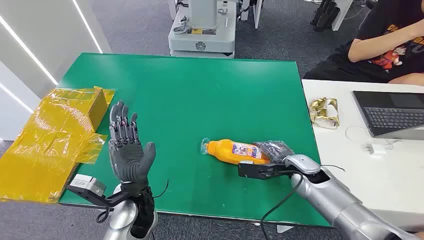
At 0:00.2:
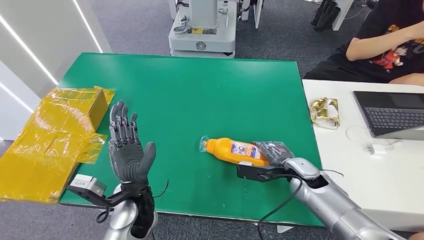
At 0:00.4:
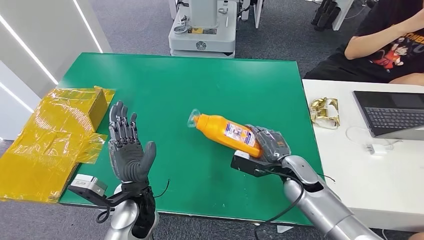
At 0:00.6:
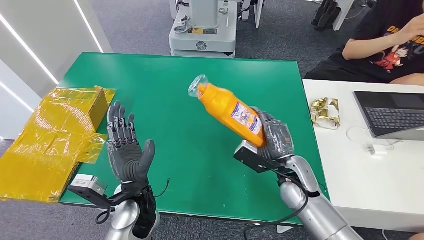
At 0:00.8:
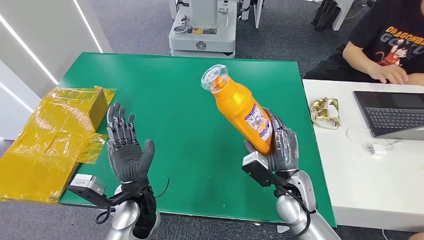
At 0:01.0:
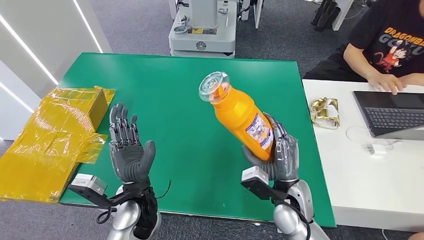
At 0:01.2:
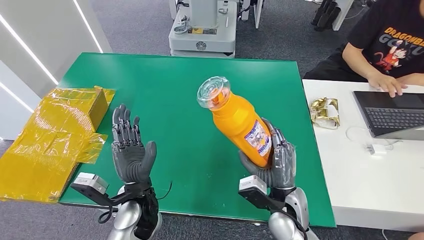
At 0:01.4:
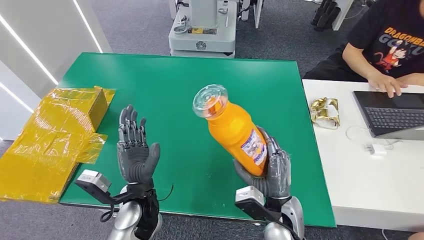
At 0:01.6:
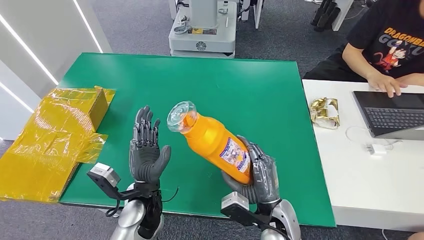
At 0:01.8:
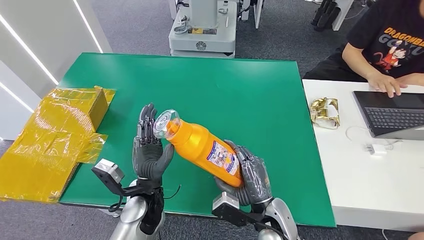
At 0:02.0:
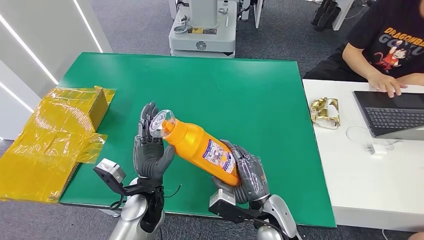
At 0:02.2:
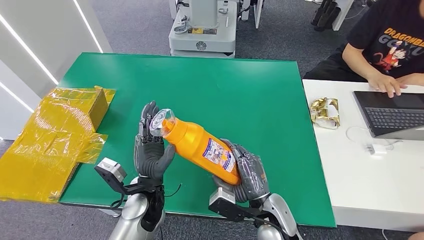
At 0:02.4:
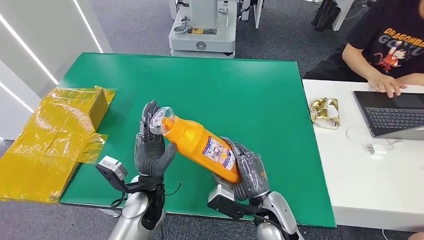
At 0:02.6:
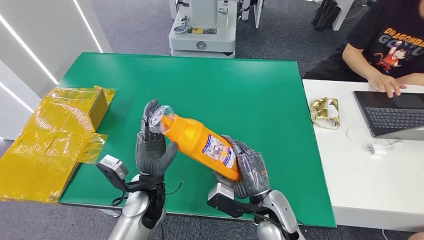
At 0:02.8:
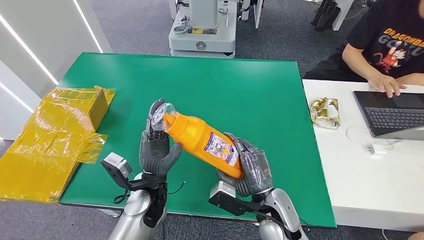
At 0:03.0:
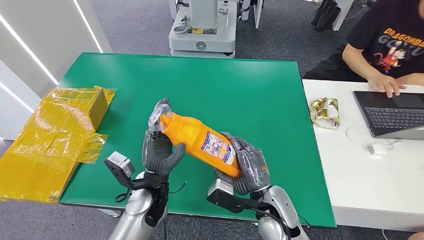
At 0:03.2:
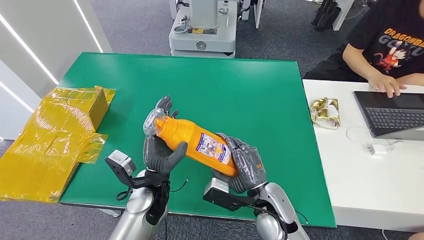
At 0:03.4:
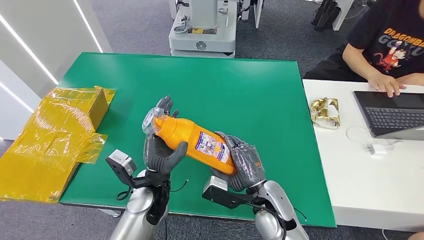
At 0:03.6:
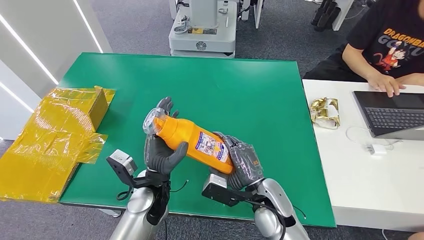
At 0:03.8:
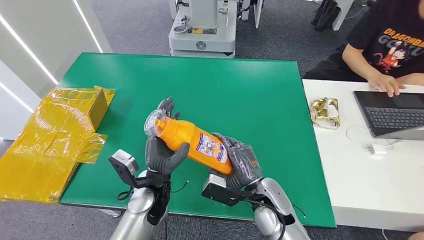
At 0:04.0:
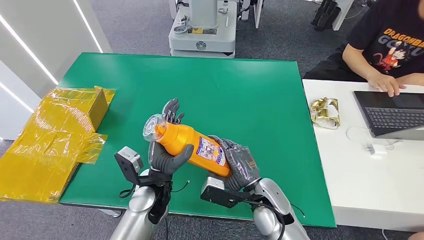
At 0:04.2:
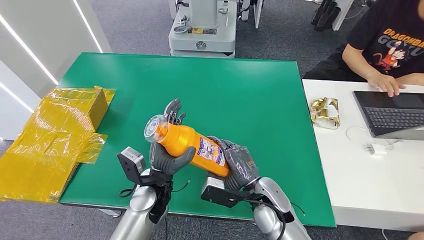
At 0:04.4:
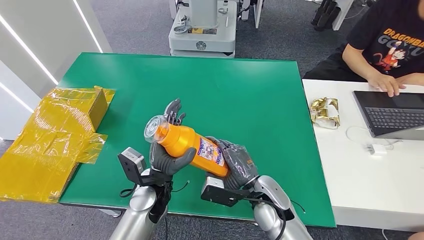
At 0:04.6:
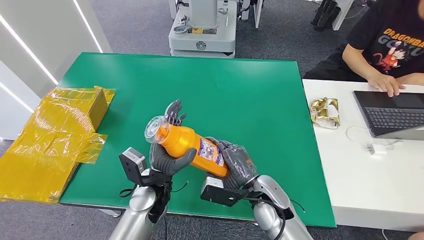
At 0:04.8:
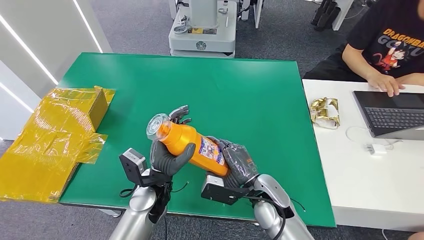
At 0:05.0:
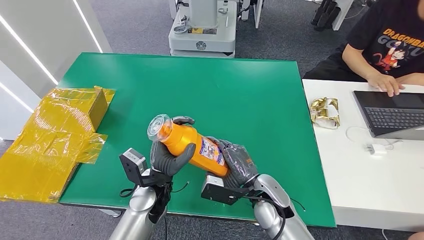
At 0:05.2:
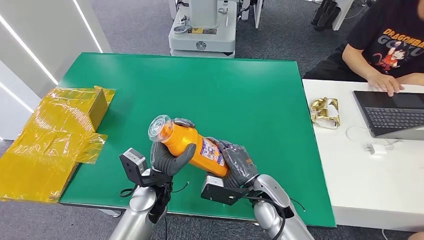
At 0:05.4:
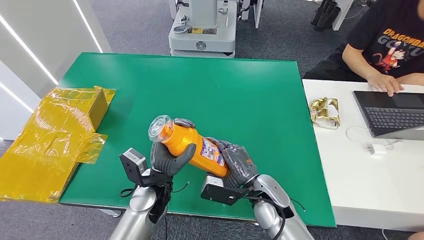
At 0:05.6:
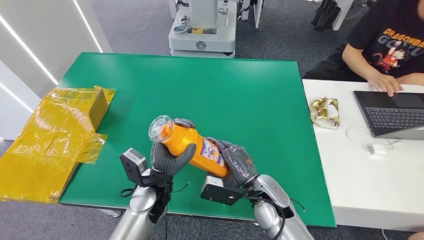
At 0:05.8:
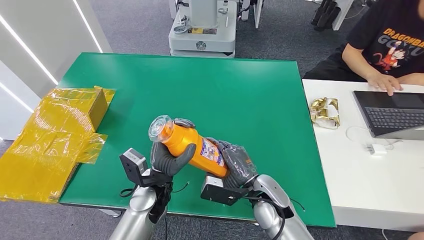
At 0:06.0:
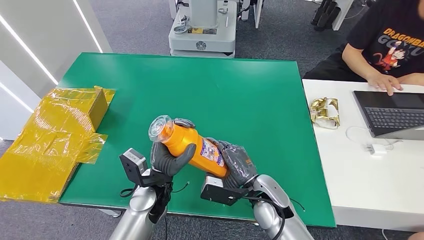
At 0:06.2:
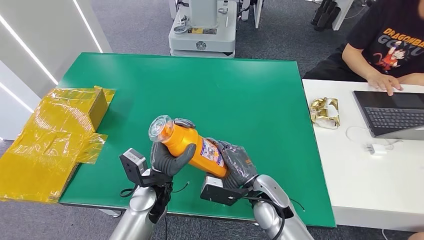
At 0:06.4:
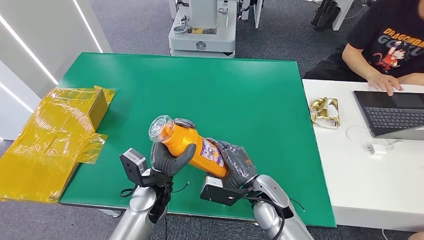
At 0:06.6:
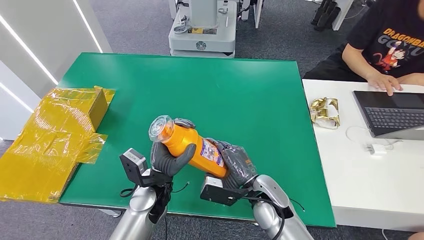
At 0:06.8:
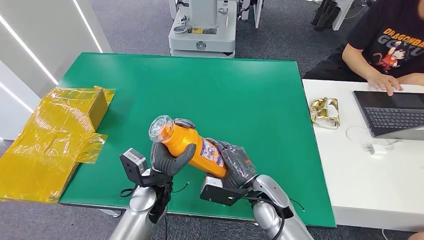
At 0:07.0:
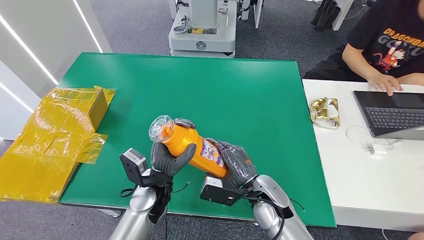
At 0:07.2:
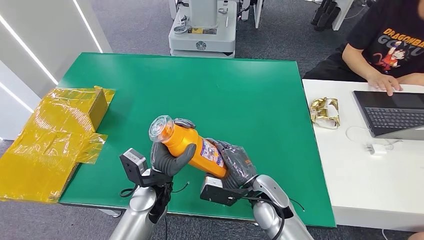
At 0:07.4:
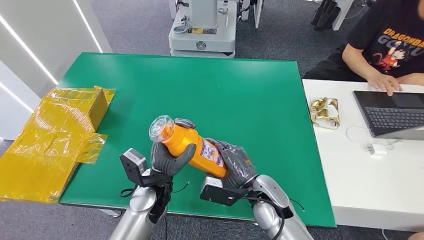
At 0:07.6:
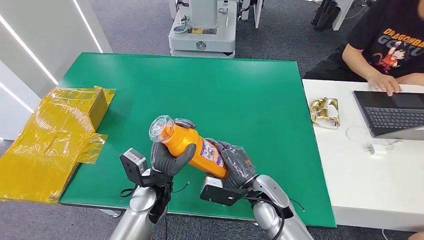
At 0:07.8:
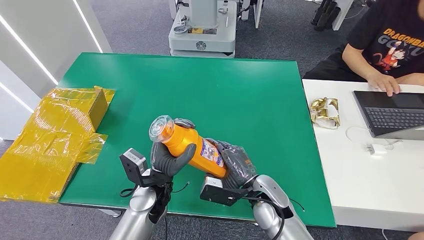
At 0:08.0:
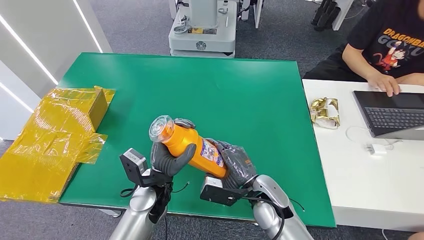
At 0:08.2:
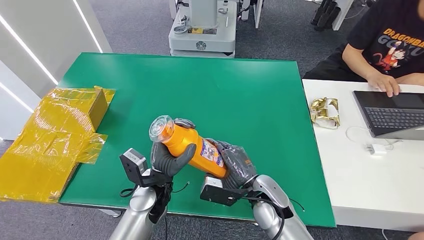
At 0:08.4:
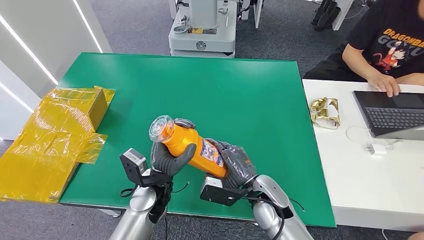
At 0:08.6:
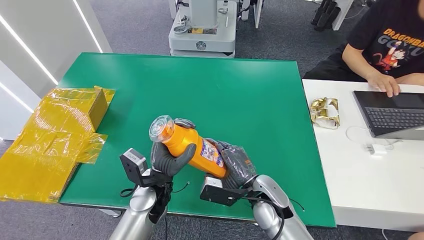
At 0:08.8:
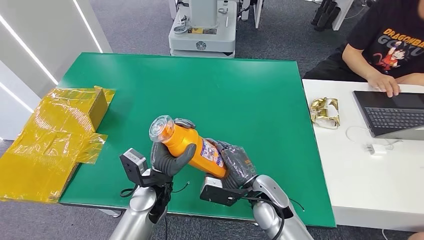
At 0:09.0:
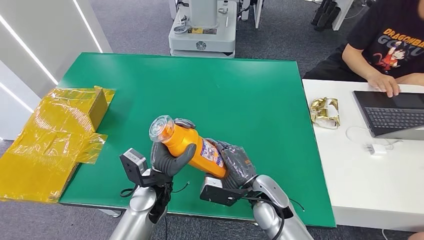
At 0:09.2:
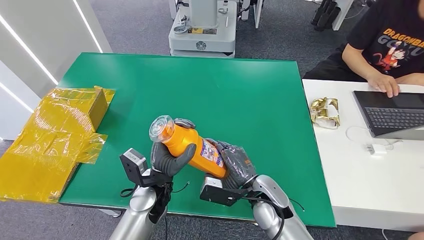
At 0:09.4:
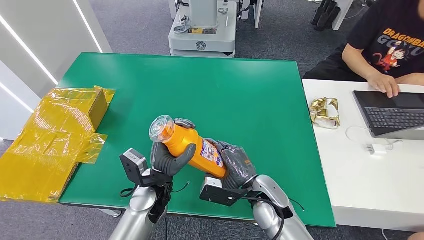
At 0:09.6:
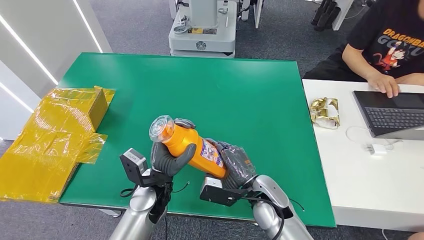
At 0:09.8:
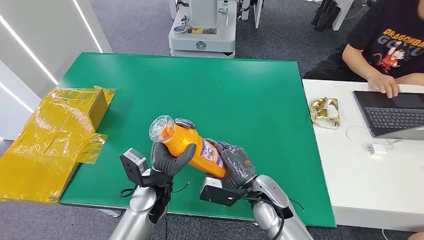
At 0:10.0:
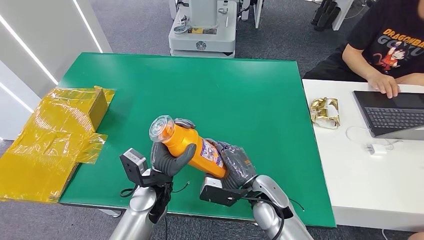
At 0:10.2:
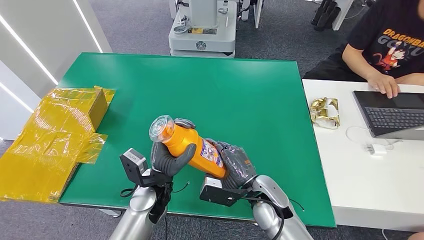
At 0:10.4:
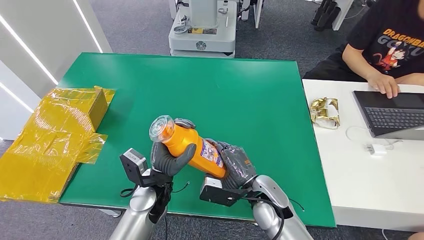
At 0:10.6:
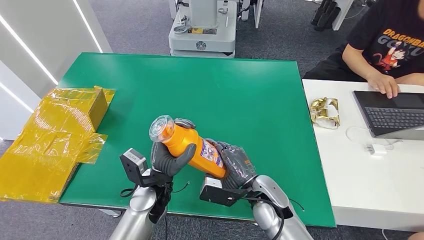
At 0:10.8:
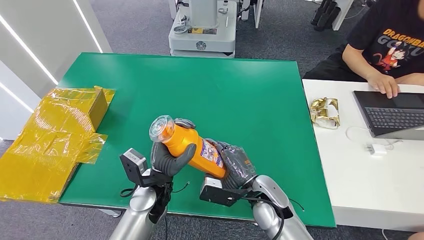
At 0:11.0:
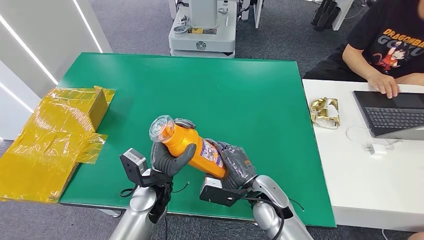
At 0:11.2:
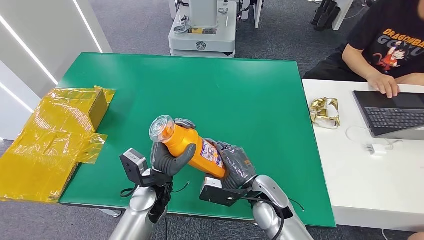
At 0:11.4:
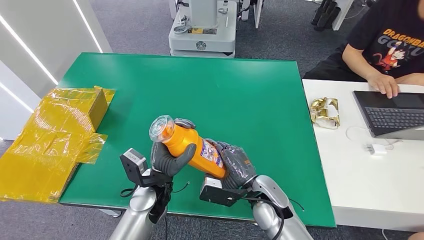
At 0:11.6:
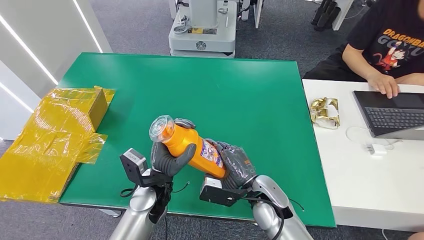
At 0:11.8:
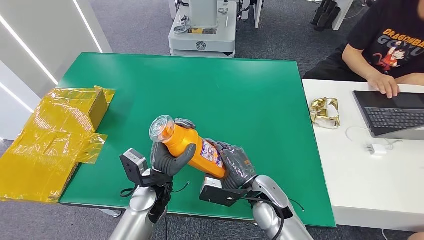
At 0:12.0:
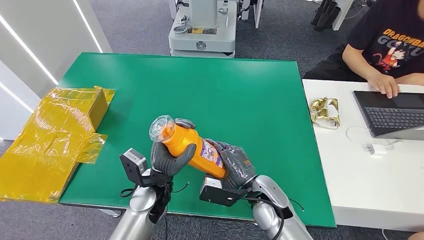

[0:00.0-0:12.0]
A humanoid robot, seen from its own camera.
Step, 0:00.0 to 0:02.8: Pick up the bottle from the table.
0:01.6 to 0:03.0: The hands move only a little.
0:03.0 to 0:04.4: The hands move only a little.
0:04.4 to 0:12.0: Neither hand changes place.

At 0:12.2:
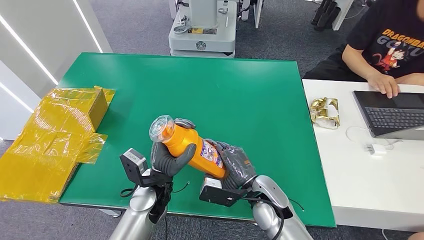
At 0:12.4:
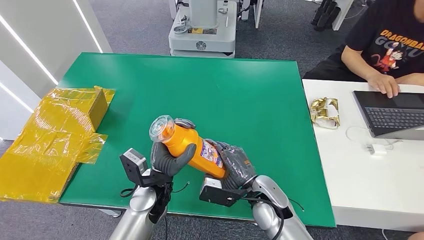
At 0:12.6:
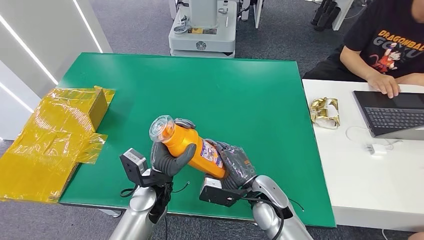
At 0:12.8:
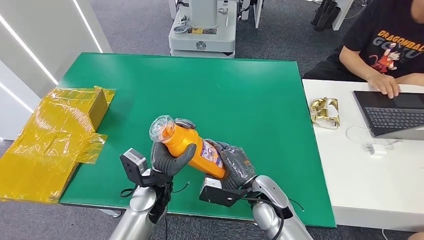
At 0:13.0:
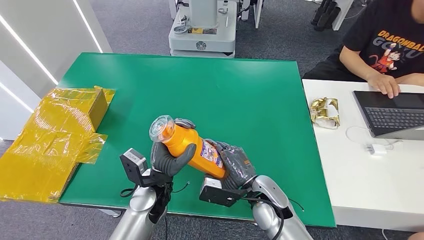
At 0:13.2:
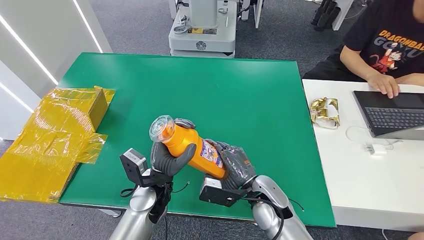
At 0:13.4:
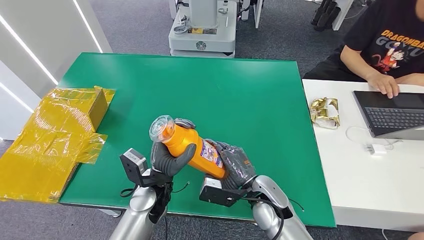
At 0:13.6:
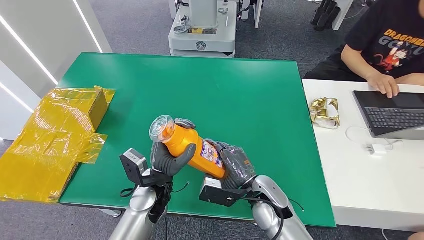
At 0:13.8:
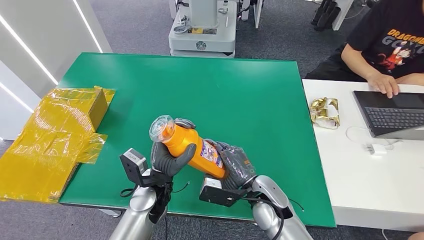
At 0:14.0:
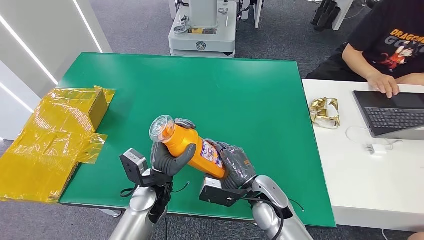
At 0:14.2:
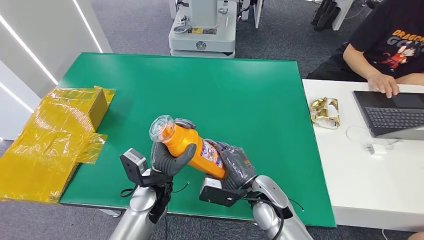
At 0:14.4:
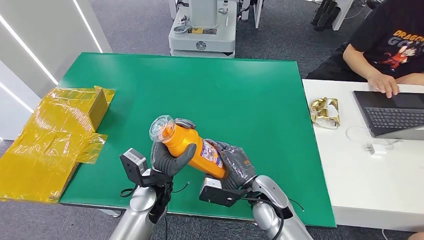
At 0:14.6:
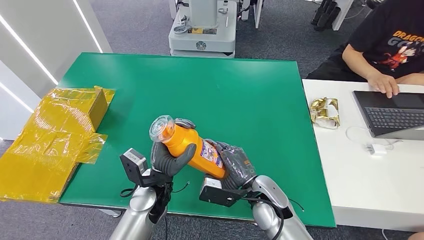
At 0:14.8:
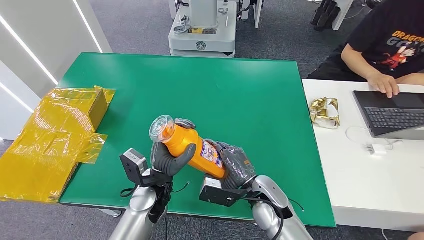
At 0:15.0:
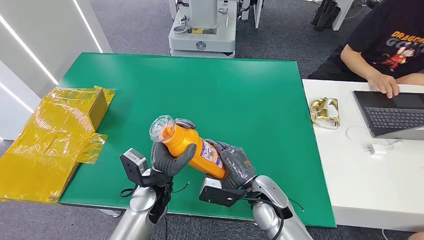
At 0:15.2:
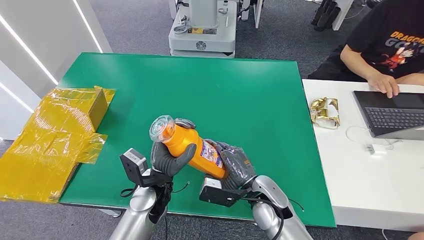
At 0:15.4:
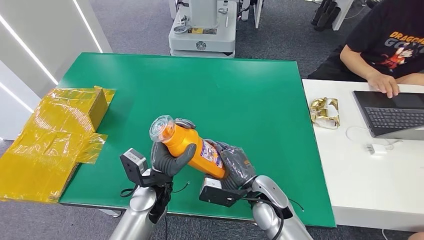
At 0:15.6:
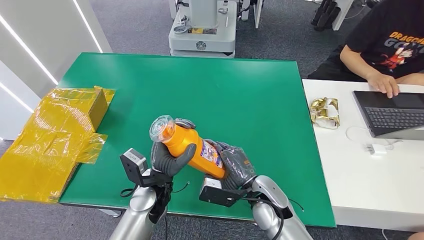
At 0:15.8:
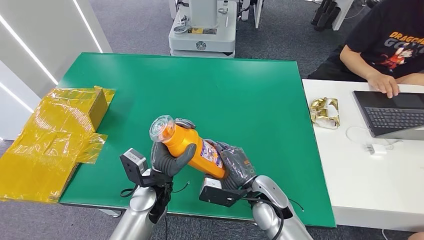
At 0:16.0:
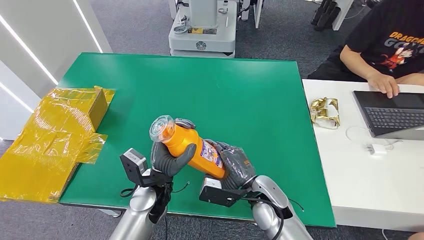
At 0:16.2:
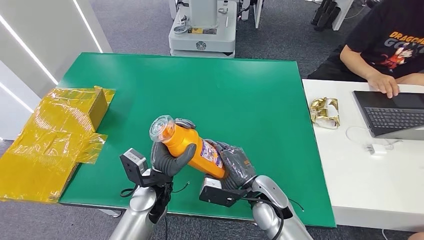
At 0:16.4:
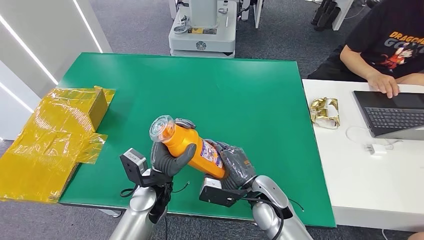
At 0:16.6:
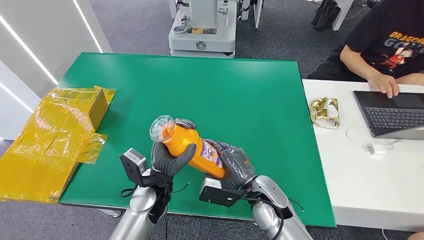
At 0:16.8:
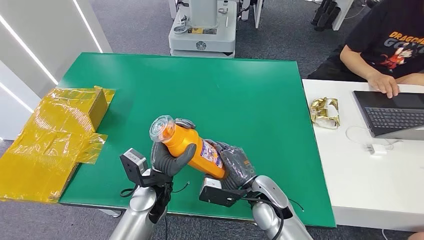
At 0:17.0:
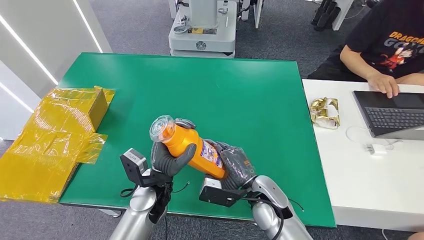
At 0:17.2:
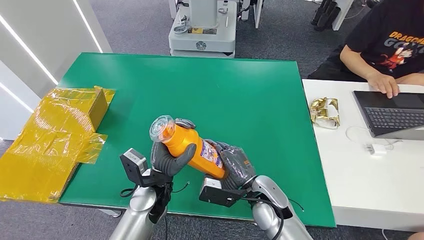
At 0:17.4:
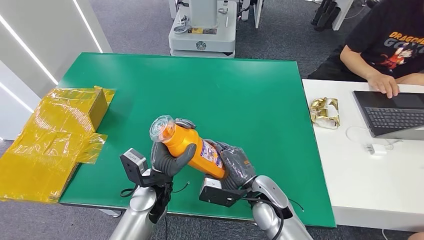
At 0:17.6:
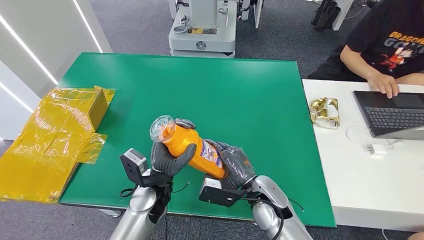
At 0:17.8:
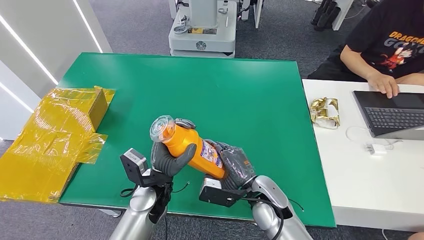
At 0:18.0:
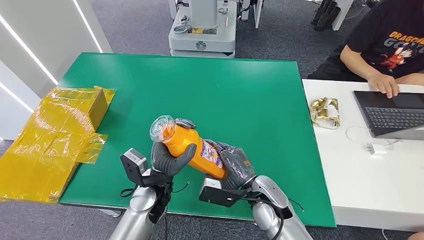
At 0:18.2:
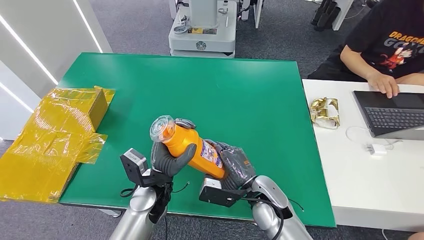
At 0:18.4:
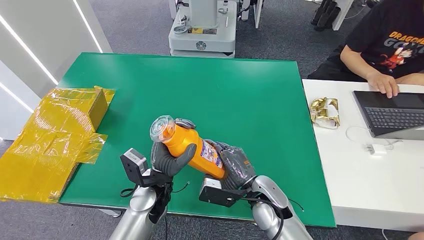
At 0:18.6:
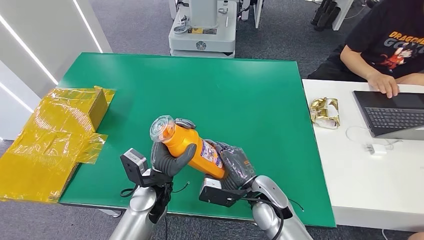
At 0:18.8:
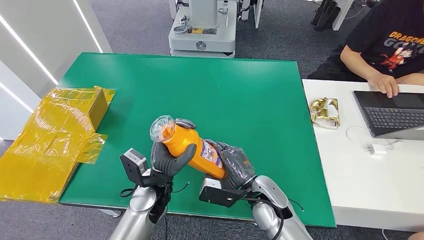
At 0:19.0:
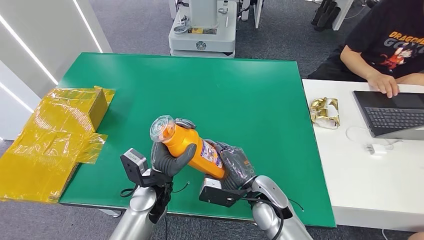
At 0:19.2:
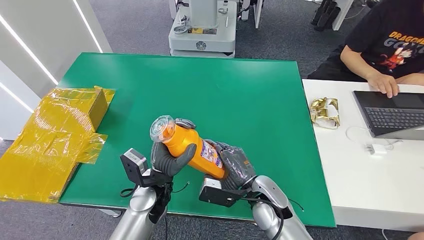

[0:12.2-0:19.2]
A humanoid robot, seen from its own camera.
0:12.2 to 0:19.2: Both hands stay put.
